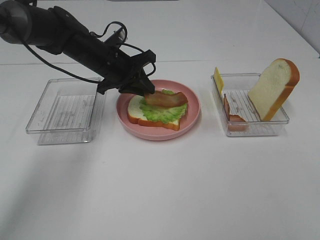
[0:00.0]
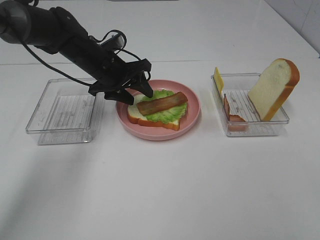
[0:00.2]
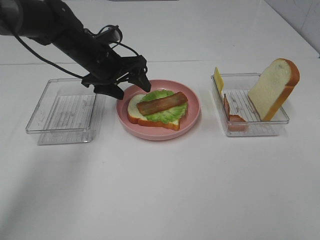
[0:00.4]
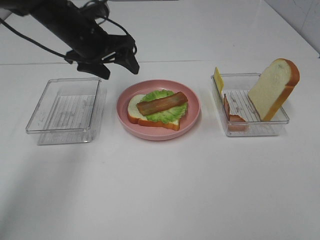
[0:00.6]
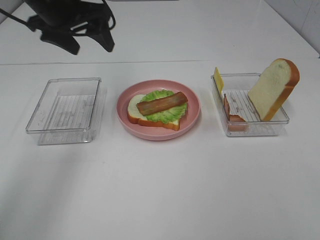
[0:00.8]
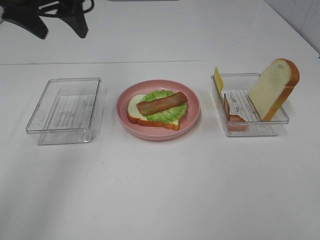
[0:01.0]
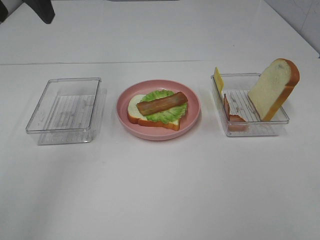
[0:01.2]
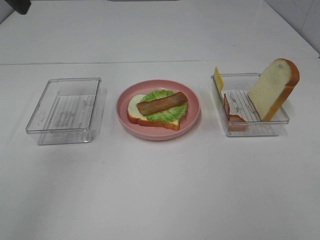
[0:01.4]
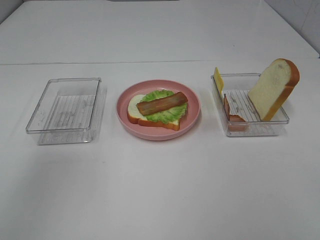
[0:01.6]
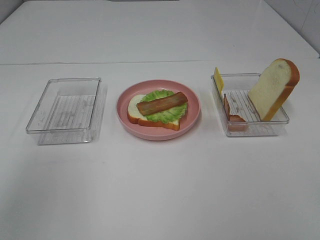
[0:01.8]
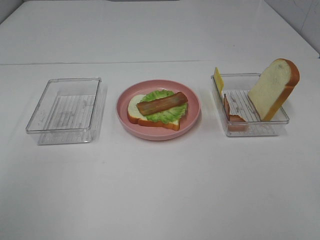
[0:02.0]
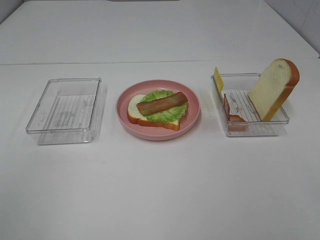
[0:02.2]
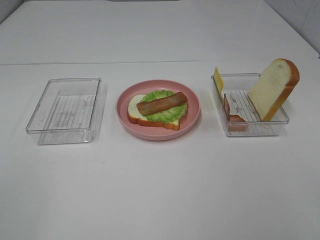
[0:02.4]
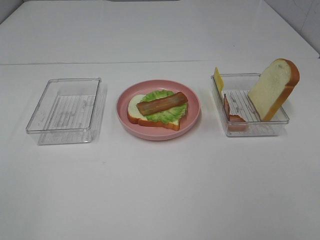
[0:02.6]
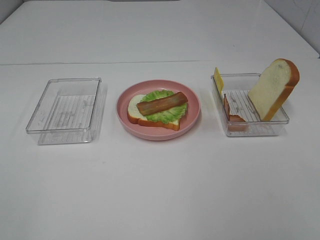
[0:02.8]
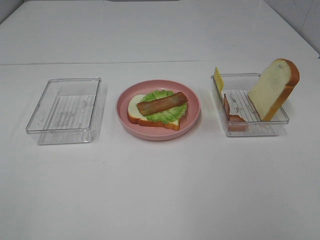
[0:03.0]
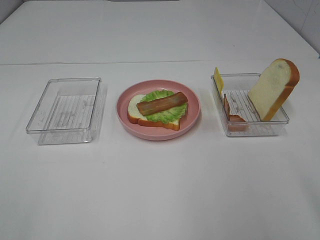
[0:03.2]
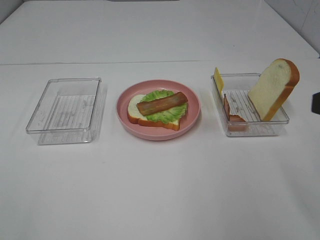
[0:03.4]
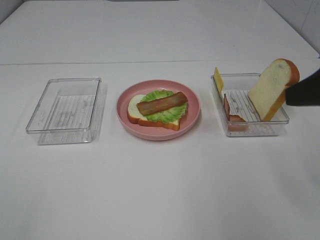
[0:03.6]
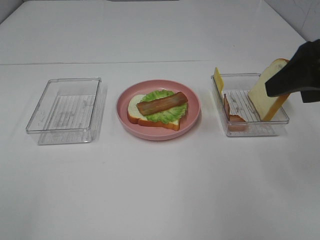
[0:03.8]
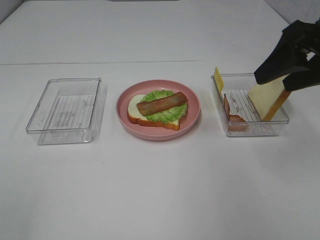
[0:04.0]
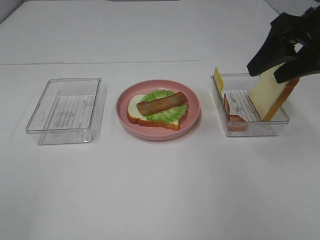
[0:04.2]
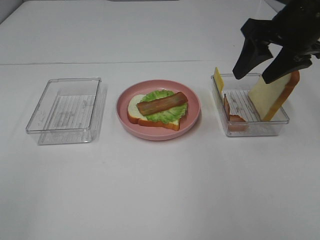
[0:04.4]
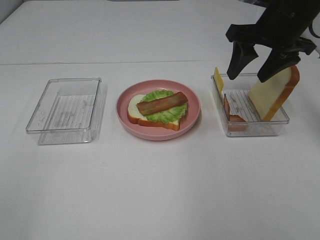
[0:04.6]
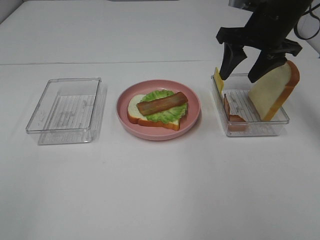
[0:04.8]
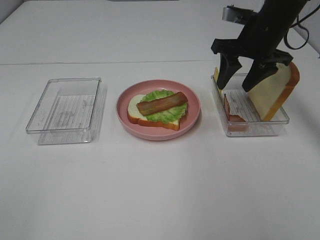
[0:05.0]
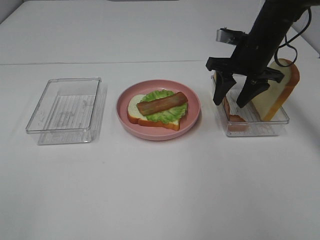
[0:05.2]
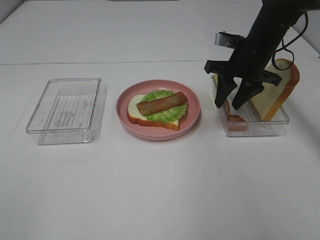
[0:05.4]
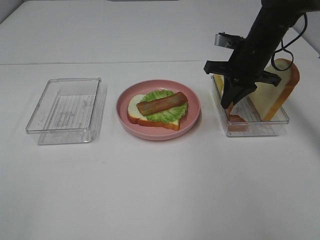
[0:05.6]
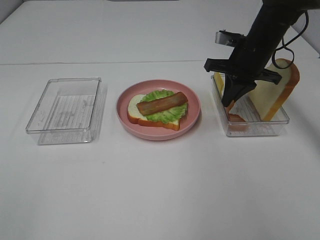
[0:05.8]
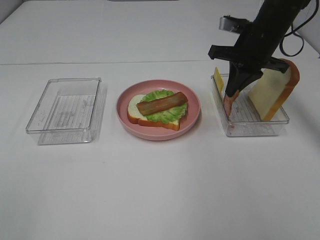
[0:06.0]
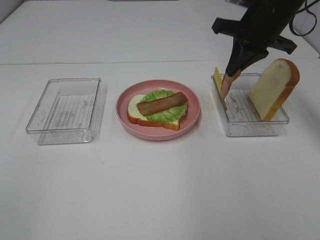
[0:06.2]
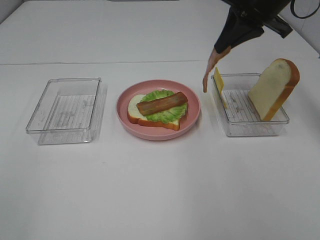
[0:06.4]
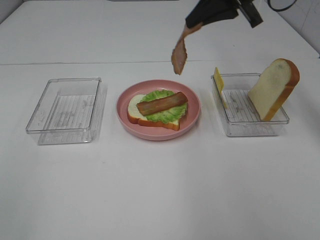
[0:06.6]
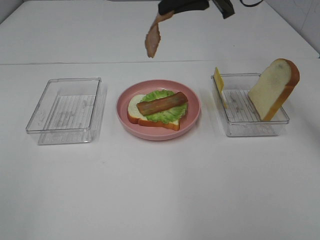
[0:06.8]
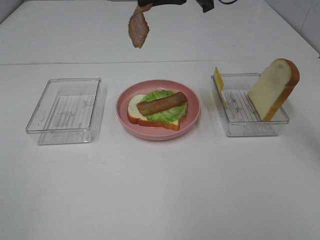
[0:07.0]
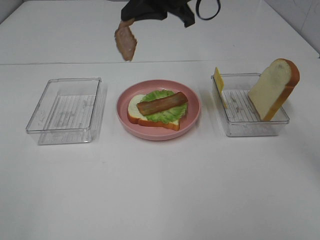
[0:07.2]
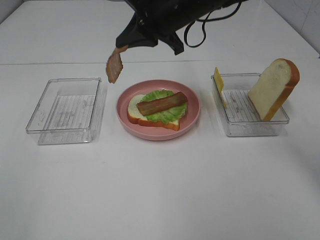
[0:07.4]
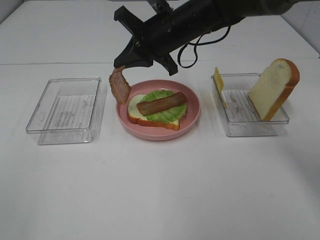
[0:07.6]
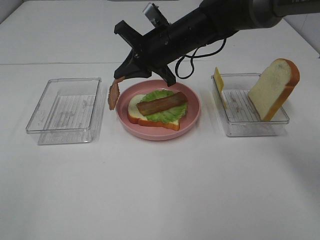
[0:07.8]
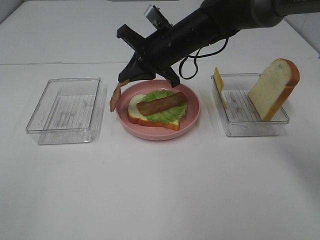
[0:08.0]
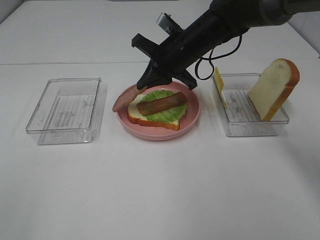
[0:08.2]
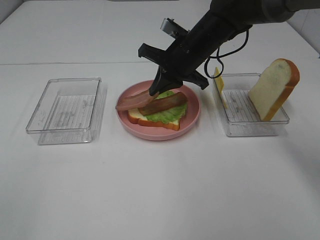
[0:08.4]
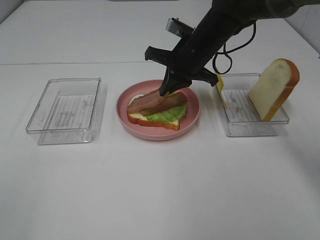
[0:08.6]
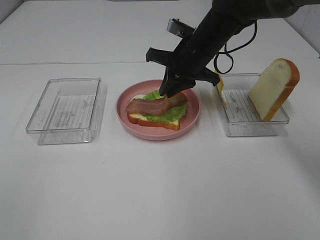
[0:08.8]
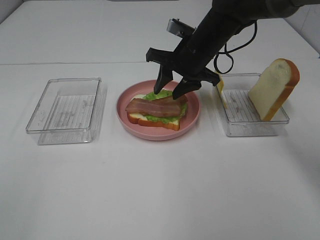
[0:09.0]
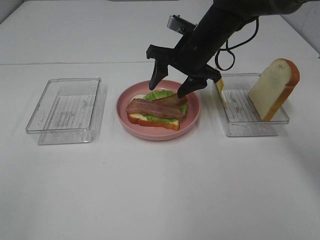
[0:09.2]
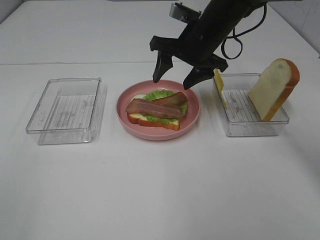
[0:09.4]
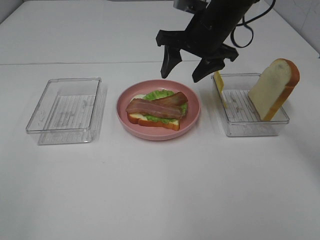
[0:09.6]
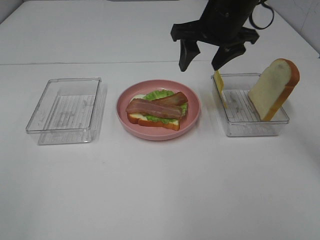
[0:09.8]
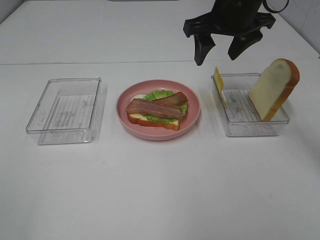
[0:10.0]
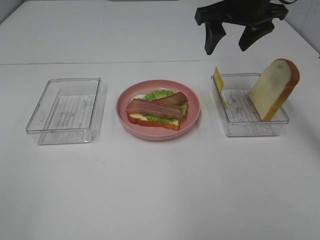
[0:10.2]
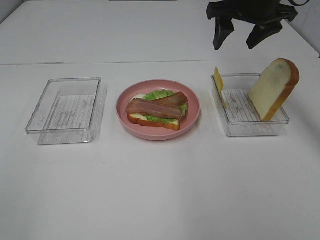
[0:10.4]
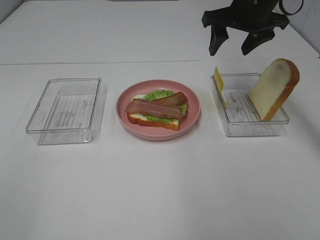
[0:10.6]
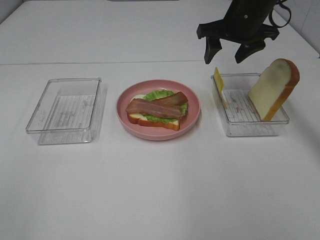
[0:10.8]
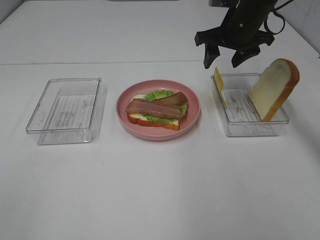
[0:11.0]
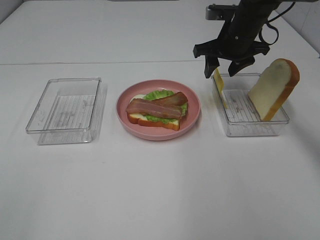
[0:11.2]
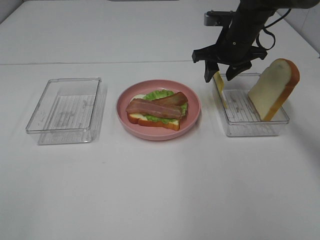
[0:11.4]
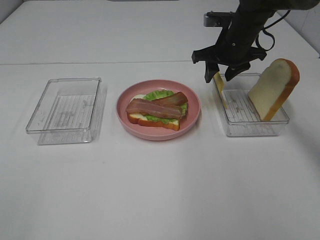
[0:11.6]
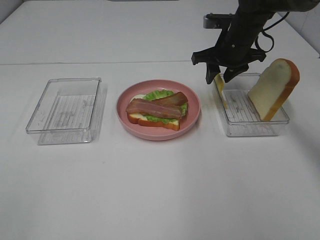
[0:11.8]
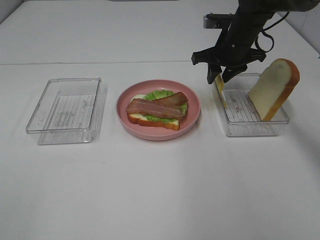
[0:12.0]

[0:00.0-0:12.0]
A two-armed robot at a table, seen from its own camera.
Task of the whole recording: Make sandwiches.
Step, 0:00.4 to 0:05.8: Right hand:grab the bacon.
Step, 0:06.0 to 0:09.8: Right hand:place bacon on bacon.
0:00.0 to 0:01.6: The left gripper heads upward, backward and to the left, covering approximately 35 cm, and opens.
0:01.6 to 0:03.0: The left gripper is displaced backward and downward by about 25 cm.
0:03.0 to 0:04.4: The right gripper is displaced forward by some 30 cm.
0:04.4 to 0:06.0: The right gripper travels forward and downward by some 10 cm, and closes.
0:06.0 to 0:07.6: The right gripper heads to the left, covering approximately 15 cm.
0:07.6 to 0:09.0: The right gripper moves some 5 cm, and opens.
0:09.0 to 0:10.4: The right gripper shifts roughly 15 cm upward and to the right.
0:10.4 to 0:12.0: The right gripper travels downward by roughly 10 cm, and closes.

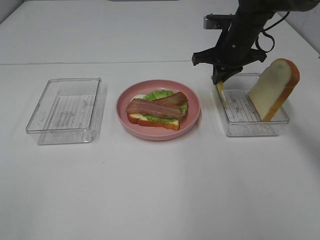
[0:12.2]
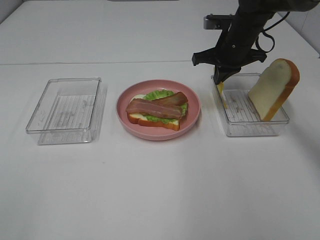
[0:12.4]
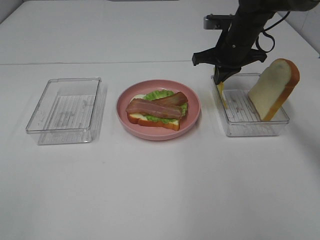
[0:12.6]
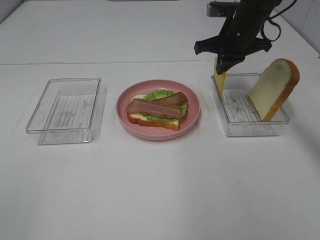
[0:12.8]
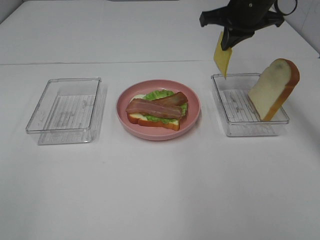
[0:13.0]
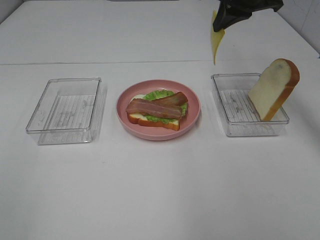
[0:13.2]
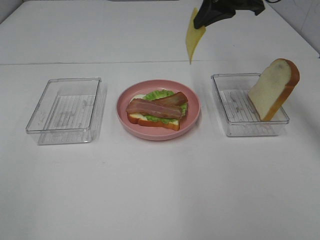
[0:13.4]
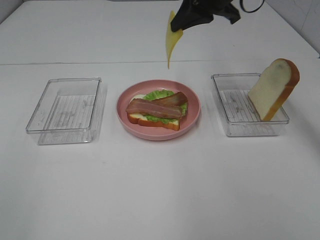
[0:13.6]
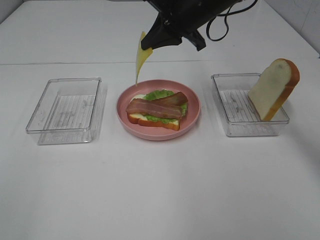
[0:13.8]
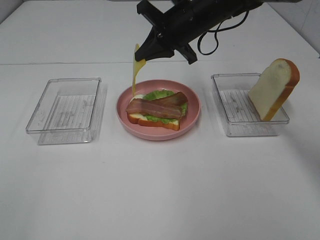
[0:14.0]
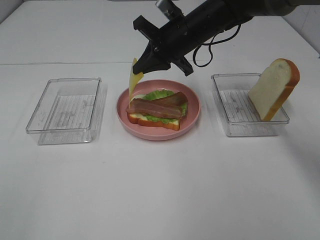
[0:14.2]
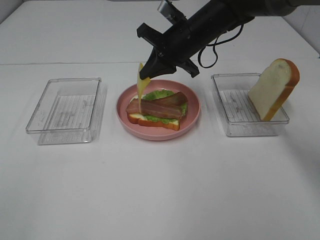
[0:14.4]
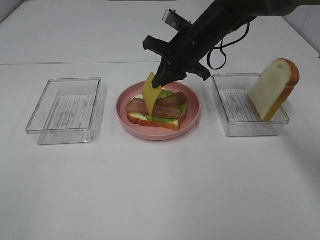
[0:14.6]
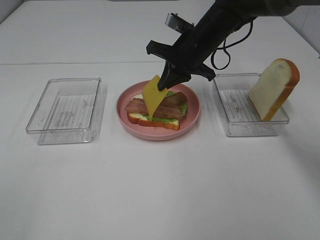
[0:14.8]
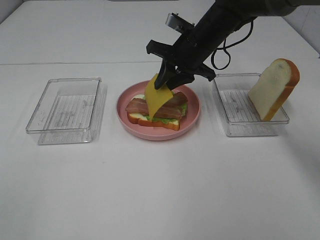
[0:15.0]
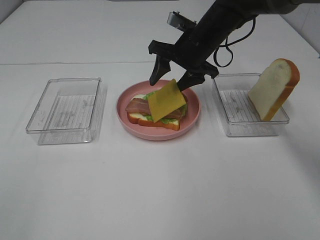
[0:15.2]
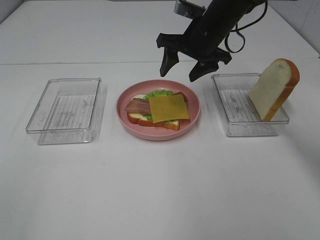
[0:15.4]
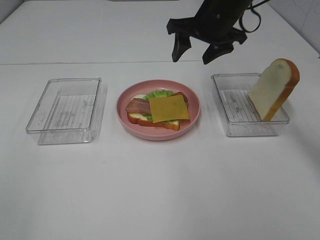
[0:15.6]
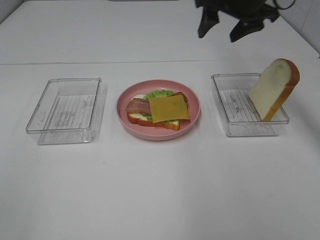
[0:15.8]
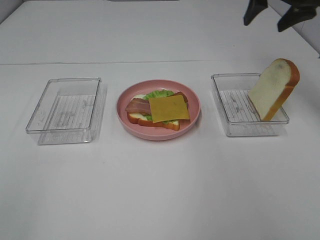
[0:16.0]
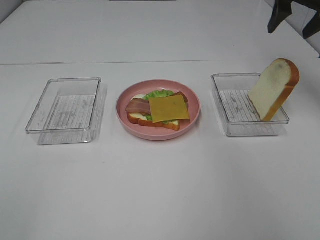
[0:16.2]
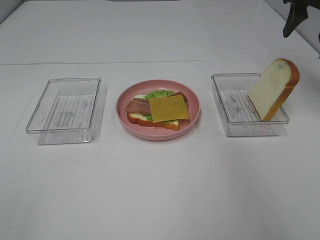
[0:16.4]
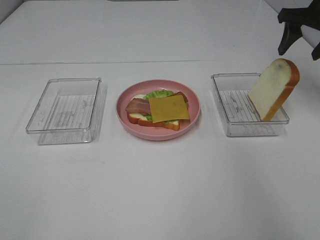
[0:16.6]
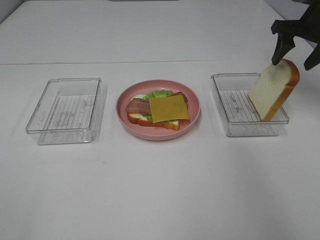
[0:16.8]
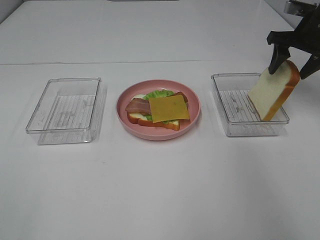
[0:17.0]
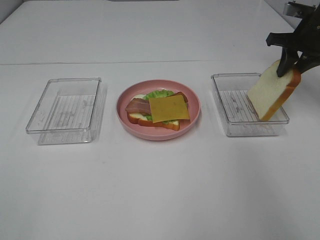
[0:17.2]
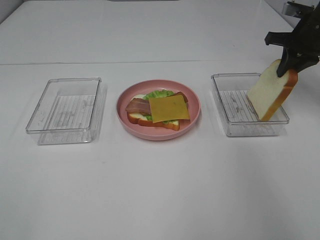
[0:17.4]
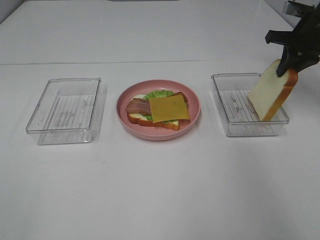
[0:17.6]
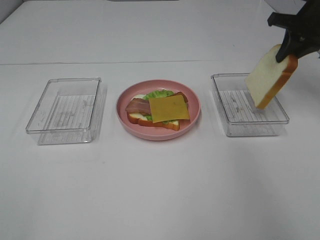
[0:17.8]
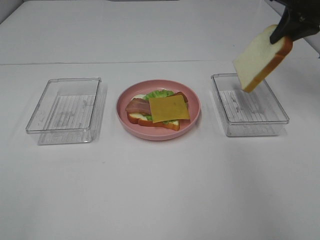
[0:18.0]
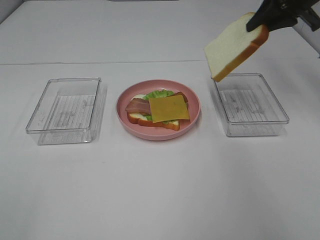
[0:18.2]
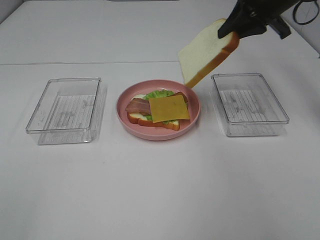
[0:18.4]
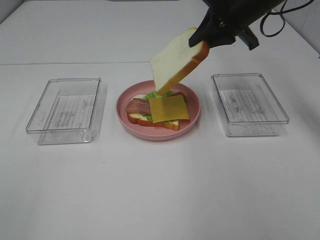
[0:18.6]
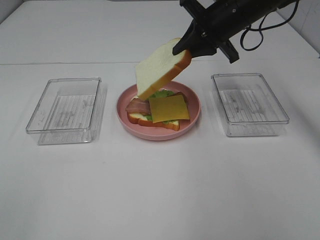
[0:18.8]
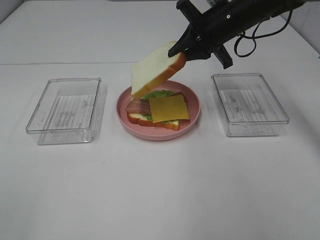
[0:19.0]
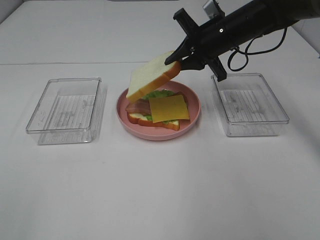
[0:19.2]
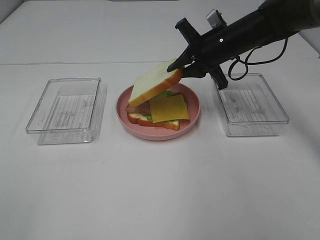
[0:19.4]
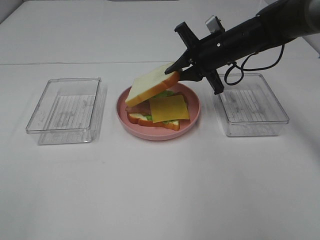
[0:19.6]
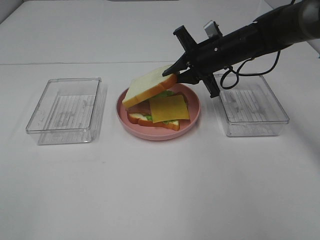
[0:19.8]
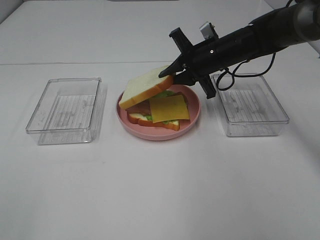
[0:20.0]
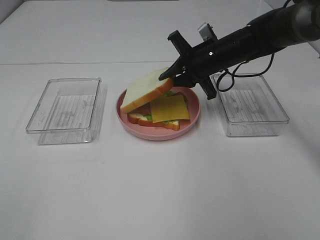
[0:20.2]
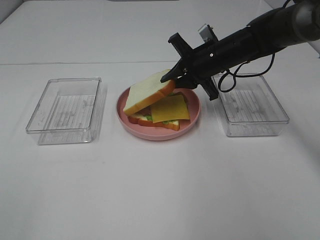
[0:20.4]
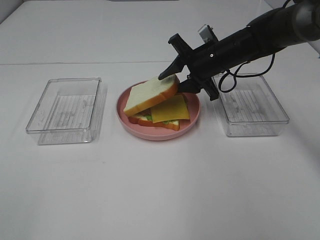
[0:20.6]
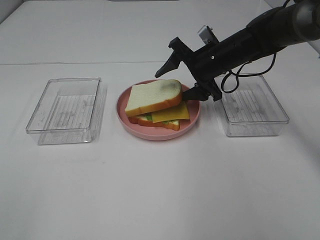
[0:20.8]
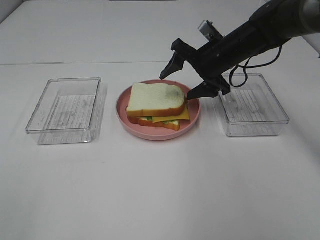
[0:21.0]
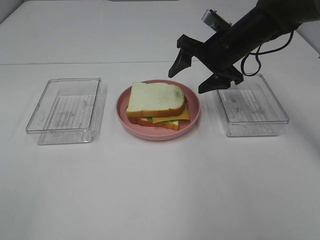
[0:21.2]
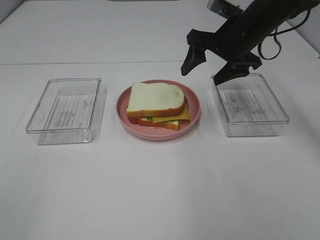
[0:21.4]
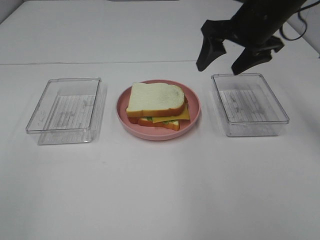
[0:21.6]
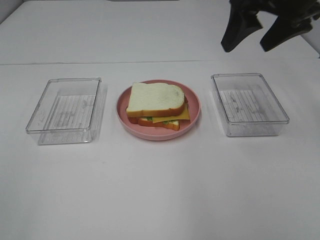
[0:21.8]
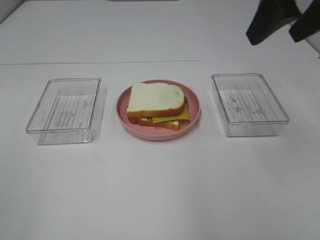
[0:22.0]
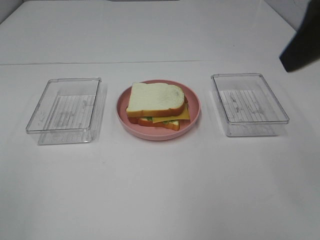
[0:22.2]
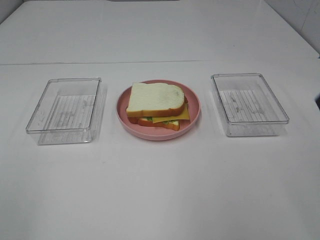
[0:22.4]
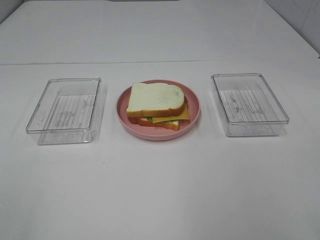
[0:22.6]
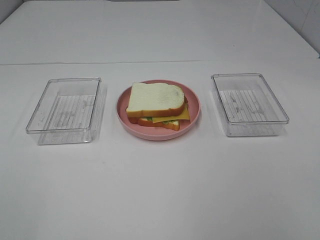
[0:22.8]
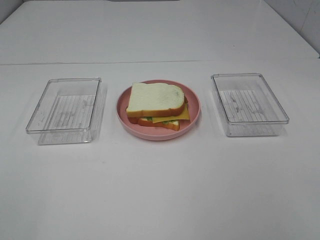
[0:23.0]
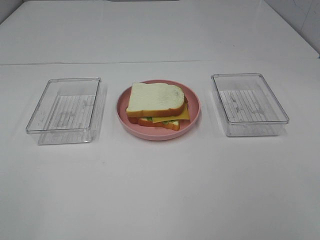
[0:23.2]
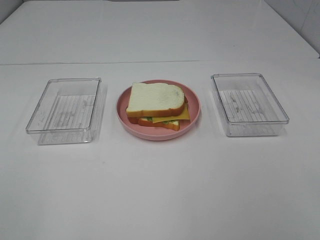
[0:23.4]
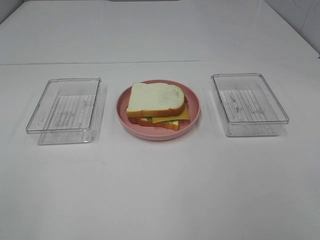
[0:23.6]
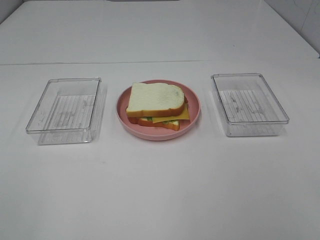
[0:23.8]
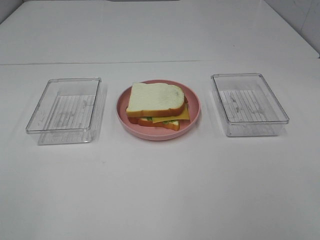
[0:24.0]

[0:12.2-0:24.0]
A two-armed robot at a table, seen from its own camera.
Task of the whole recording: Make sandwiches.
Step, 0:12.6 to 0:15.2: Right hand:place the cheese slice on top of the bacon.
Step, 0:15.4 to 0:17.4: Right hand:grab the bread slice.
Step, 0:17.6 to 0:21.2: Right hand:place the bread slice on the cheese slice.
0:12.2 to 0:13.6: The right gripper goes about 15 cm upward and to the left.
0:13.6 to 0:15.2: The right gripper heads downward, covering roughly 10 cm, and opens up.
0:15.2 to 0:16.6: The right gripper shifts some 25 cm to the right.
0:16.6 to 0:18.2: The right gripper goes approximately 5 cm to the left, and closes.
0:18.2 to 0:19.6: The right gripper shifts approximately 15 cm downward and to the left.
0:19.6 to 0:21.0: The right gripper opens.
0:21.0 to 0:22.6: The right gripper goes about 40 cm backward and upward.
